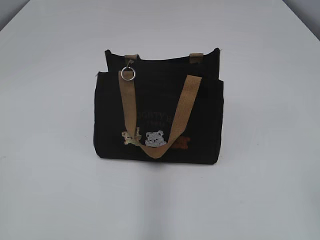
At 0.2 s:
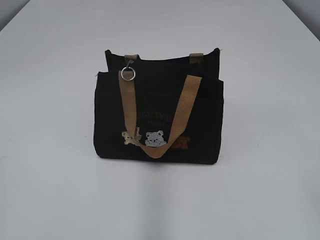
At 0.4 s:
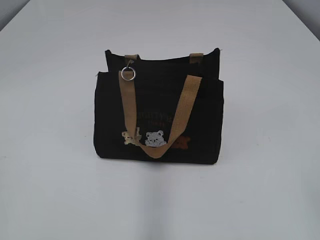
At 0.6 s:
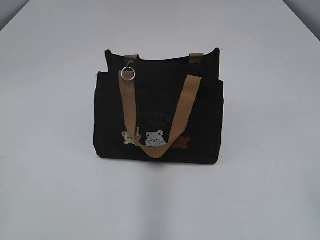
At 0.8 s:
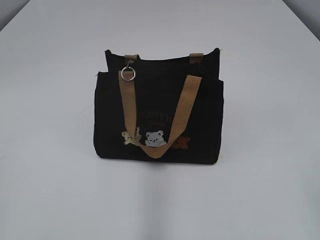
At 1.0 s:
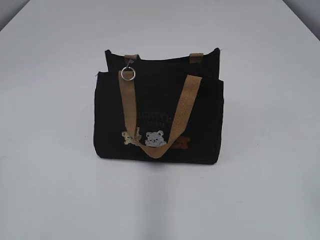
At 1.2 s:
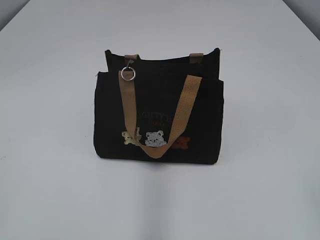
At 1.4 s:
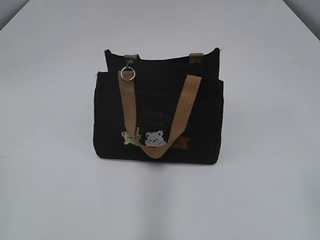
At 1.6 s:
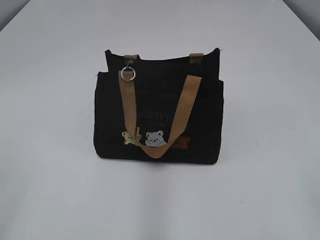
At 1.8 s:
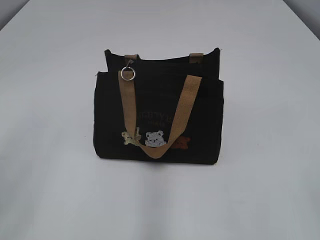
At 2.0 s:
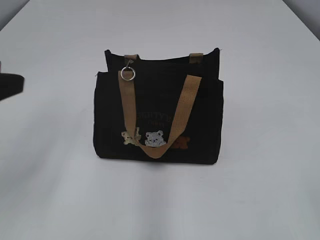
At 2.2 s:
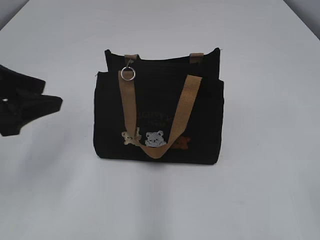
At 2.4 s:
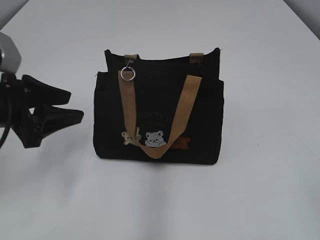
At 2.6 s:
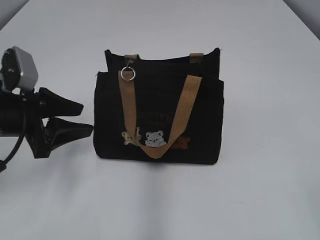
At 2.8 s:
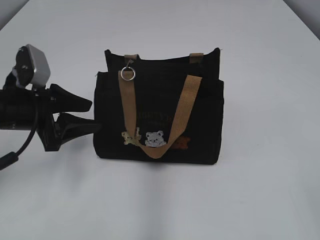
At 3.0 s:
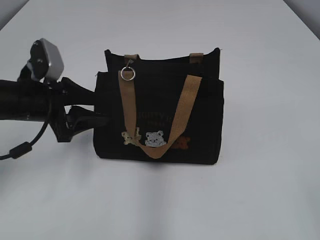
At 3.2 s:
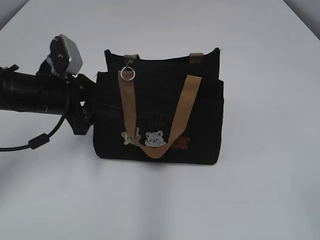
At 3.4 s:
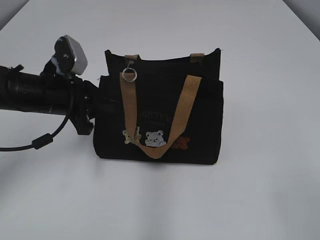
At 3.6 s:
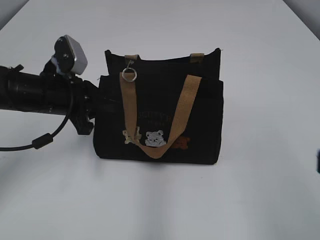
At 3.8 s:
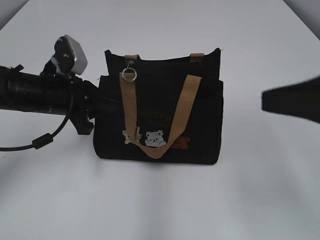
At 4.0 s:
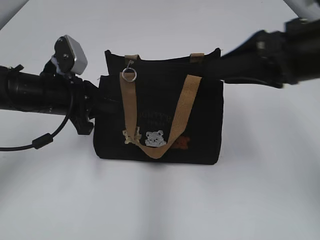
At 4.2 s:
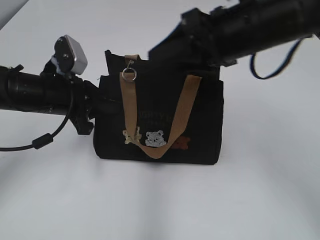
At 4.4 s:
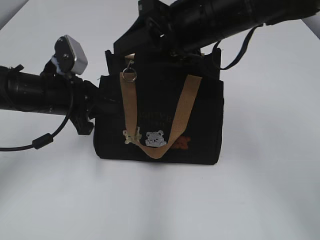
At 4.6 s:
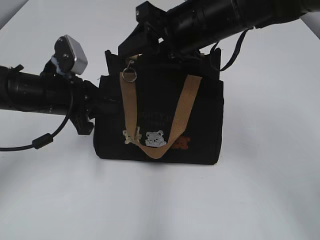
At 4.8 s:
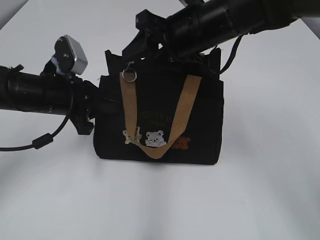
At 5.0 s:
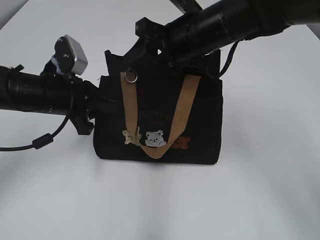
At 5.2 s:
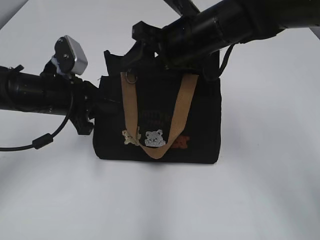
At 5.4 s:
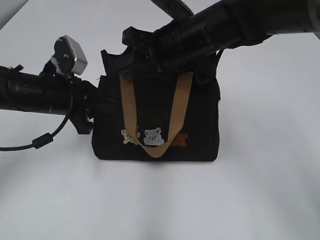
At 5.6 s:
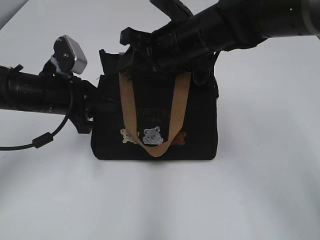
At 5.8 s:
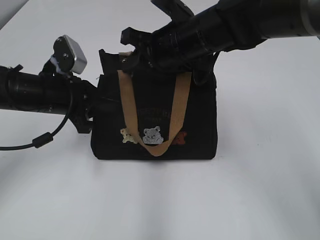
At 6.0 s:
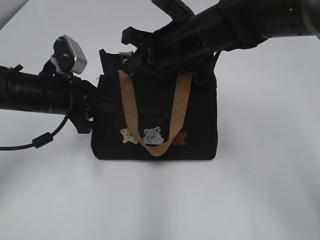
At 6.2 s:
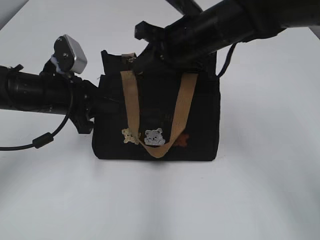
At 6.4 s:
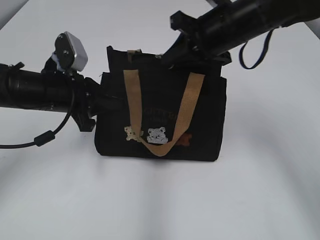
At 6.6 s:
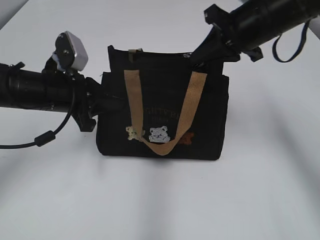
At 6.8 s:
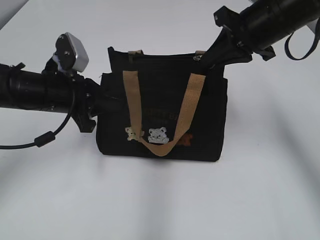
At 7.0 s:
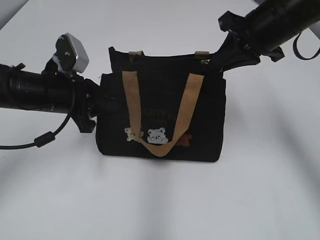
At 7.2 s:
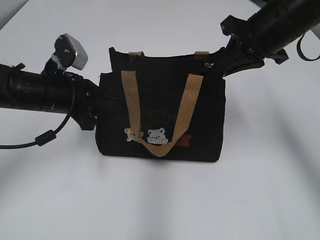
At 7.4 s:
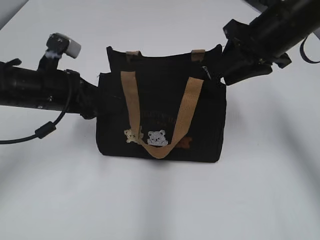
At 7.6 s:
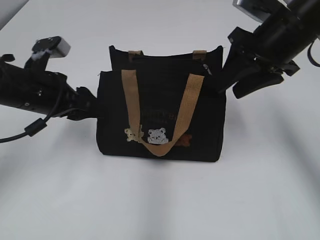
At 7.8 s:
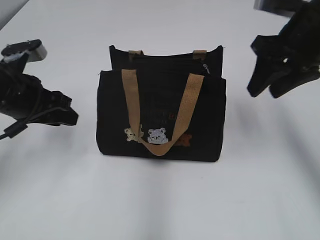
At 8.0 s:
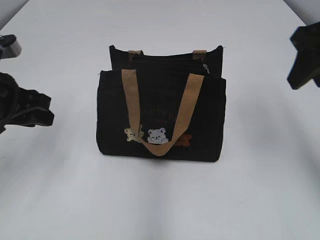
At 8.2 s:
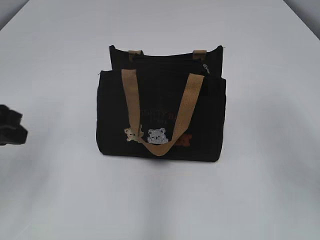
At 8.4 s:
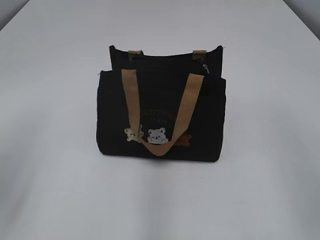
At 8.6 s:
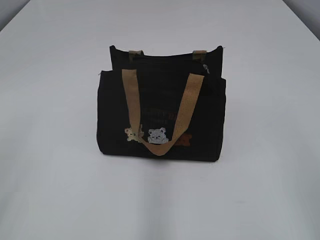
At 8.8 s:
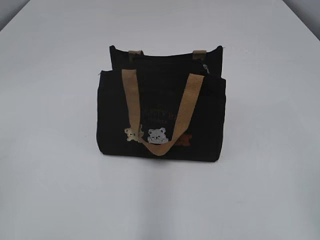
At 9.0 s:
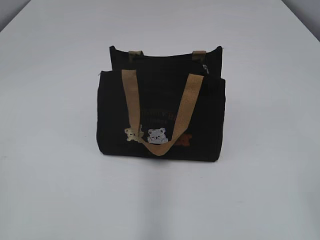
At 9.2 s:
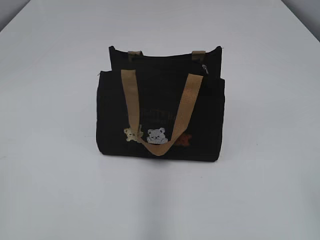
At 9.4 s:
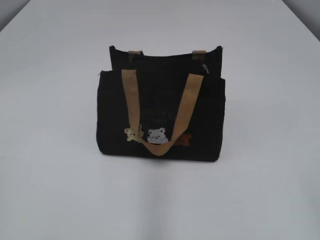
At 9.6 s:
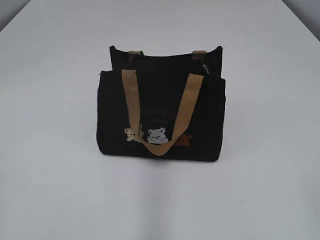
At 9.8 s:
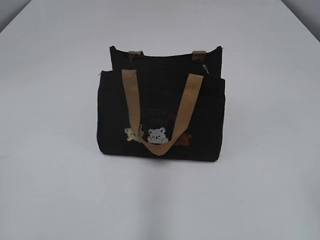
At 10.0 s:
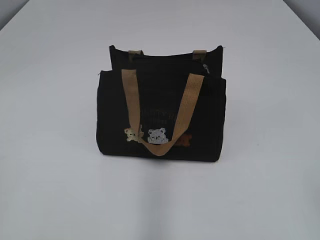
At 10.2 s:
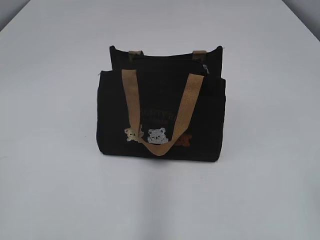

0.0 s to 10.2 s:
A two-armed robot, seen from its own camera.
Step, 0.0 to 7.2 s: Pull open the zipper with your right hand.
Step, 7.4 to 7.6 s: Hold the bag with your left hand.
1.4 to 3.0 s: The left gripper is displaced forward and downward by roughly 30 cm, and opens up.
3.0 to 4.4 s: The left gripper closes up, while the right gripper heads forward and to the left, covering some 35 cm.
4.4 to 5.8 s: The right gripper goes about 10 cm downward, forward and to the left.
5.8 to 7.2 s: The right gripper is displaced to the right by approximately 15 cm, and closes up.
7.2 to 8.8 s: The right gripper moves backward, about 30 cm, and opens up; the left gripper travels backward, upward and to the left by some 30 cm, and opens up.

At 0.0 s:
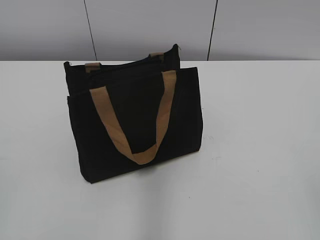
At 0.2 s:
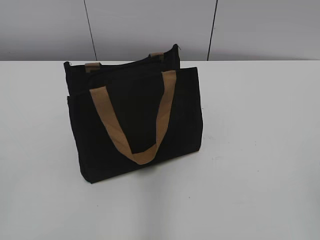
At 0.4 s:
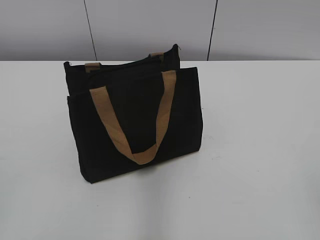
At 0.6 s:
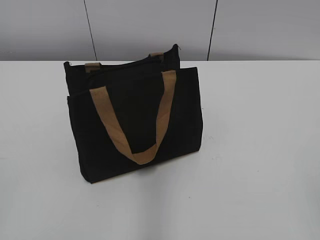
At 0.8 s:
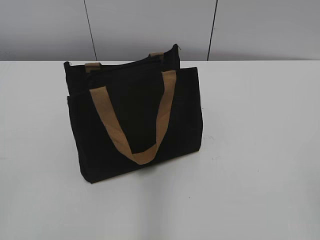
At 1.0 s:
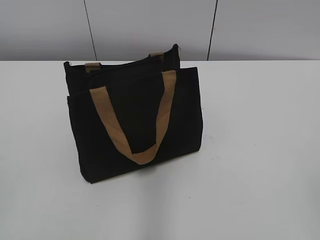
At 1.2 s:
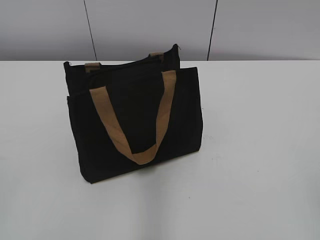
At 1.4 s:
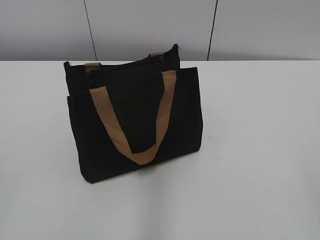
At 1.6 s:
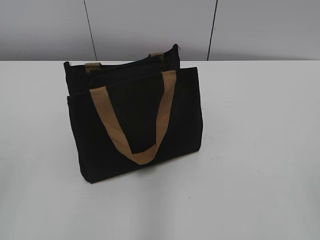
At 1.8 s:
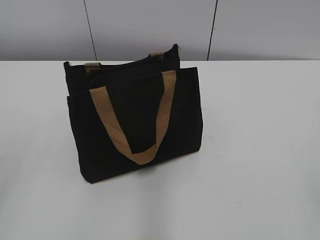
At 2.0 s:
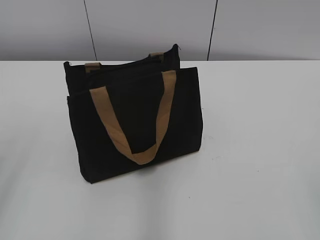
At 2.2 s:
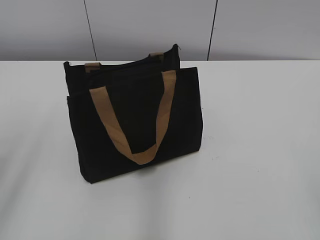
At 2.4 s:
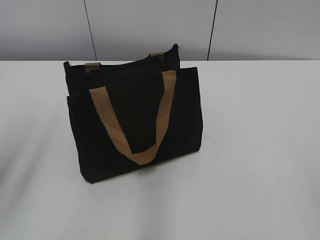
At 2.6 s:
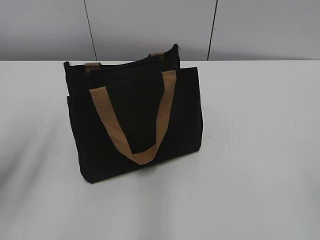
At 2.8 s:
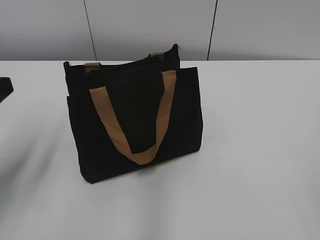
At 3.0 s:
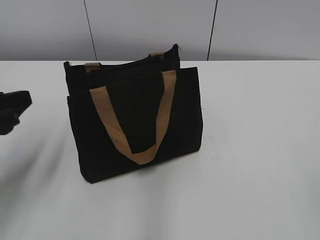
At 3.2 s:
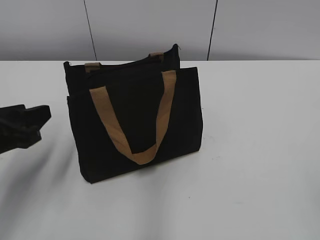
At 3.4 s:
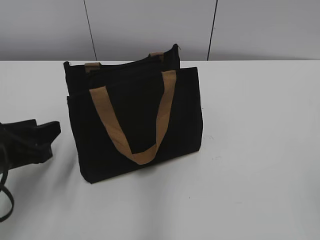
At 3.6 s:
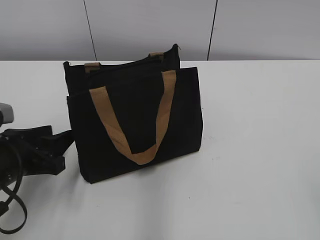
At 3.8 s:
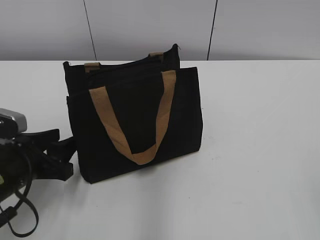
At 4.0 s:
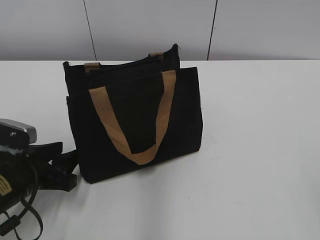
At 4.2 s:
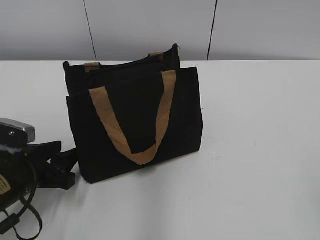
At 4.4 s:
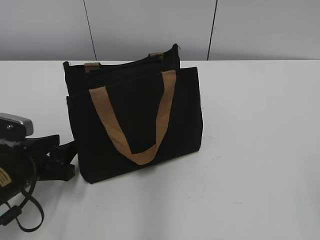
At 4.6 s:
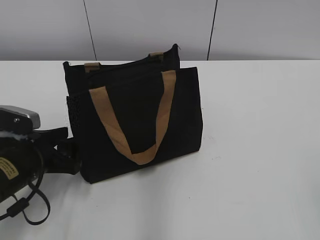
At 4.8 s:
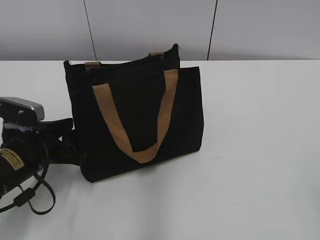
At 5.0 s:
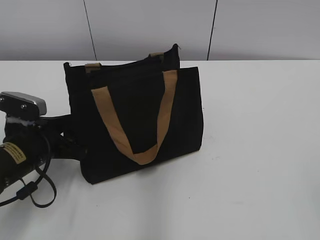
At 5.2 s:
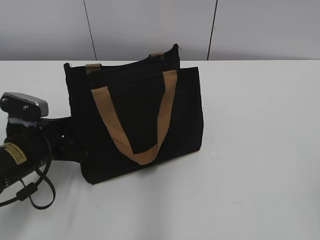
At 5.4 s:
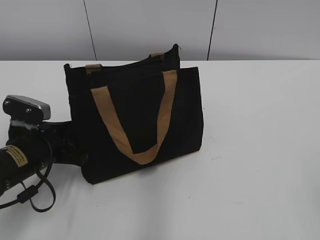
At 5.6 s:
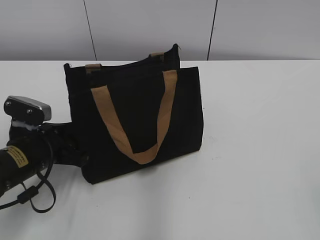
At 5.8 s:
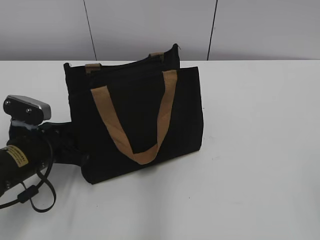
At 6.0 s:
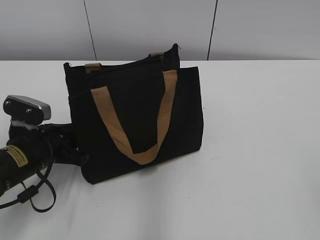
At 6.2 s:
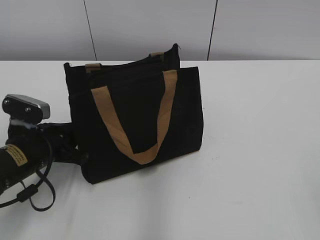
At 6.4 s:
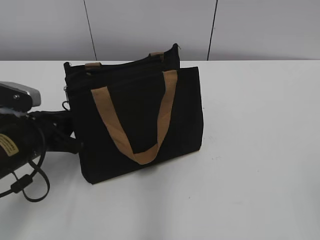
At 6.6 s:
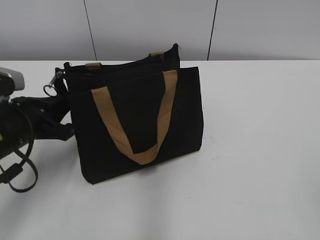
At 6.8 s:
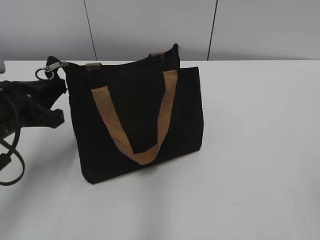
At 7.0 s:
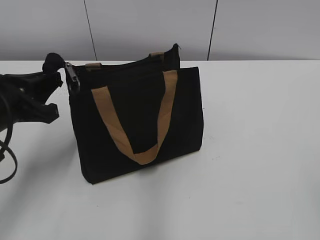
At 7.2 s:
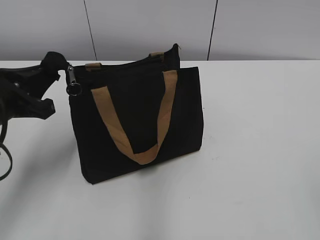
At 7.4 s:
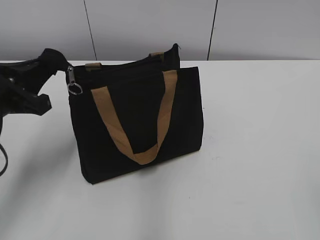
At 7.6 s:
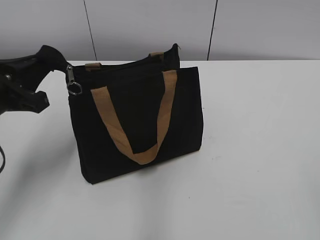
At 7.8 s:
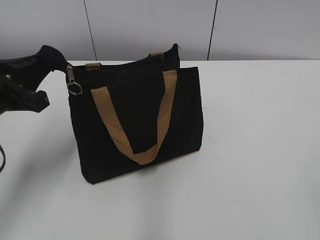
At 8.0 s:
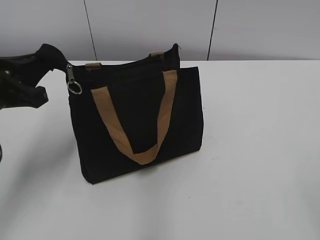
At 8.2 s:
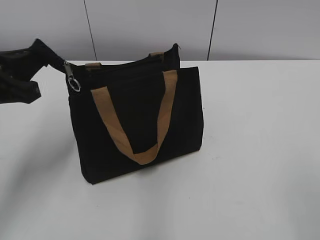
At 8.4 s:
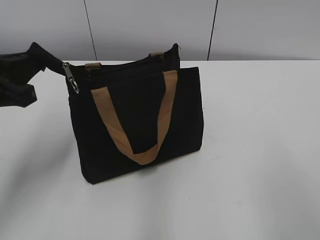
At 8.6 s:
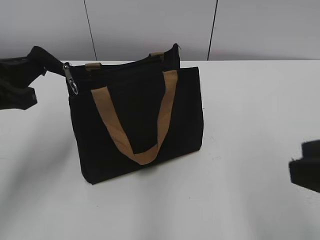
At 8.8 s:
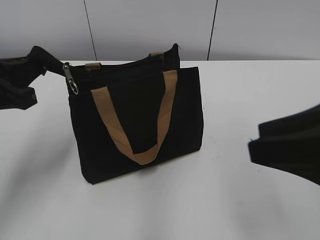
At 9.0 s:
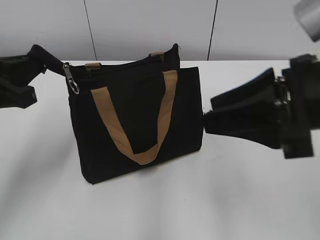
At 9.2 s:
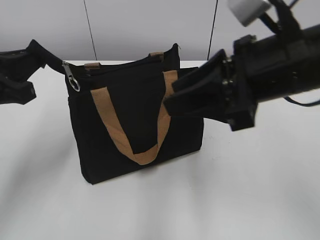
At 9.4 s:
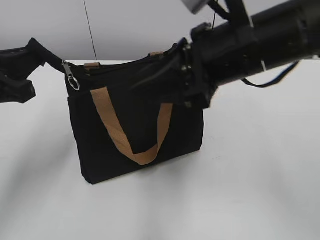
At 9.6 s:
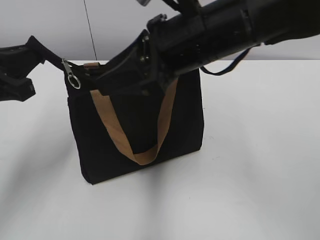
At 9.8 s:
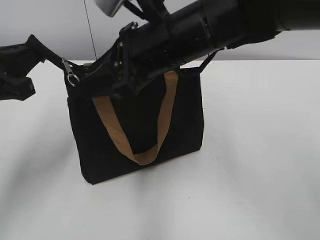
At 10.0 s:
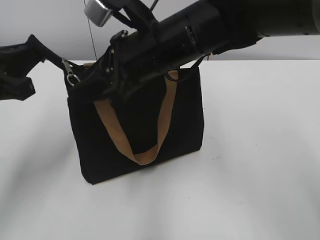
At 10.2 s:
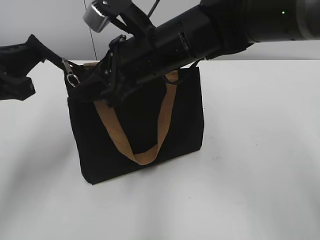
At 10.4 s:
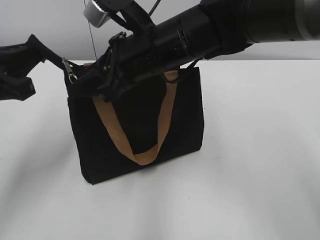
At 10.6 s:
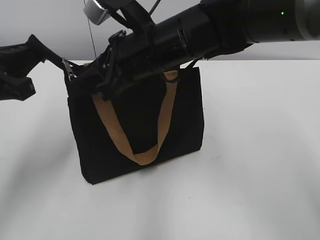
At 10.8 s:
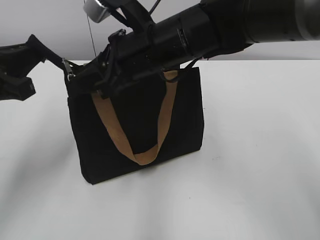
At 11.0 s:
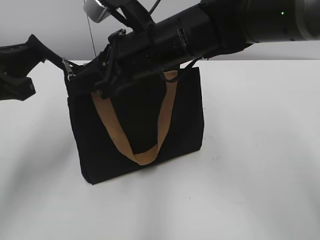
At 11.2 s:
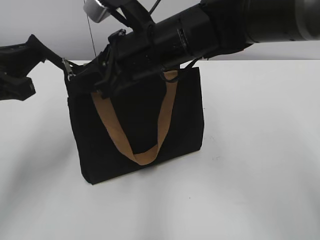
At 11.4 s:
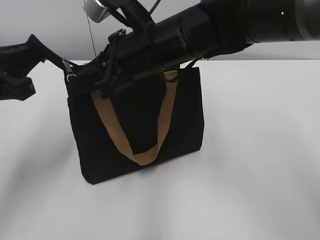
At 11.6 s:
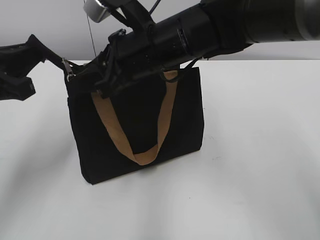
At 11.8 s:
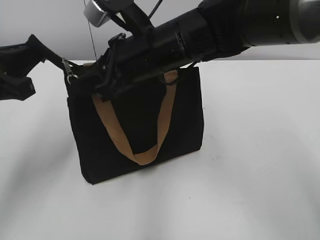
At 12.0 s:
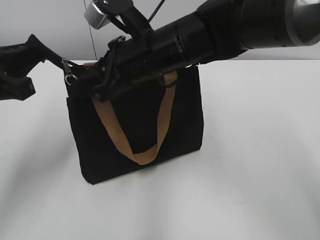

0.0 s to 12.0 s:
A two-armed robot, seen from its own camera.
1.6 to 3.0 s: The left gripper is displaced forward and downward by about 20 cm, and opens up.
3.0 to 4.4 s: The left gripper is displaced downward by approximately 15 cm.
4.4 to 6.0 s: The left gripper closes.
6.0 to 7.6 s: The left gripper is displaced upward by about 10 cm.
7.6 to 9.0 s: The right gripper heads forward and to the left, covering roughly 20 cm.
9.0 to 10.4 s: The right gripper heads to the left and forward, covering some 25 cm.
10.4 to 12.0 s: Both grippers stay about where they are.
